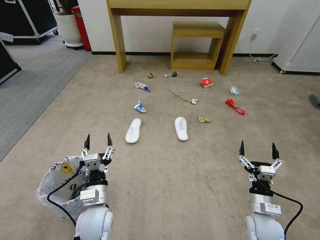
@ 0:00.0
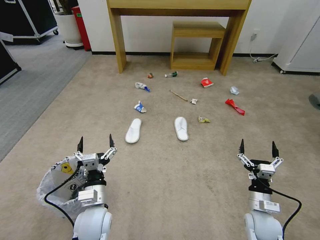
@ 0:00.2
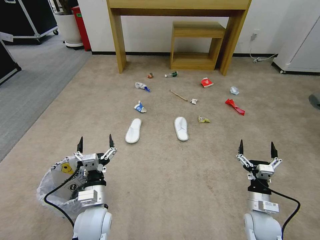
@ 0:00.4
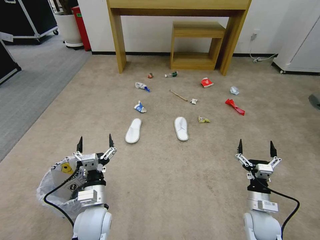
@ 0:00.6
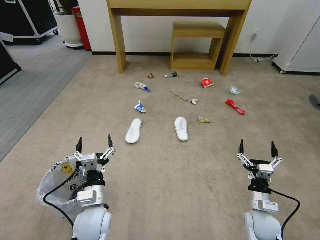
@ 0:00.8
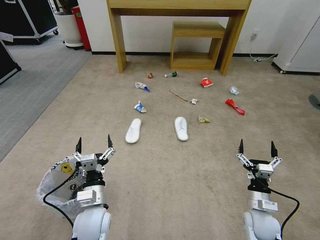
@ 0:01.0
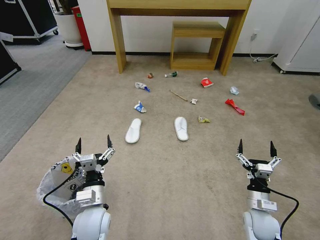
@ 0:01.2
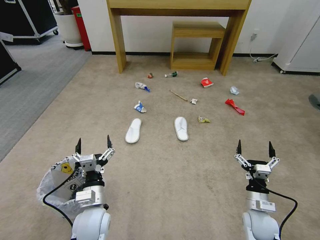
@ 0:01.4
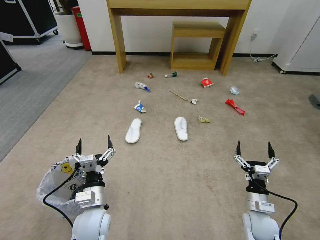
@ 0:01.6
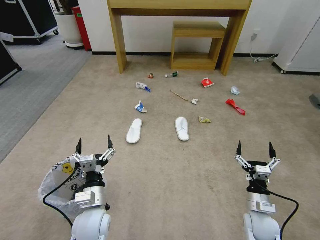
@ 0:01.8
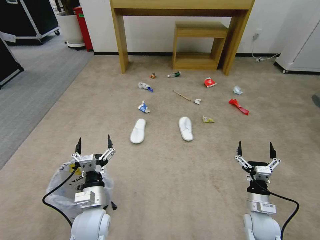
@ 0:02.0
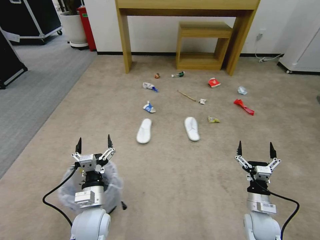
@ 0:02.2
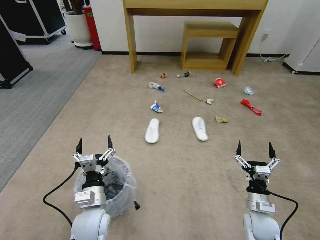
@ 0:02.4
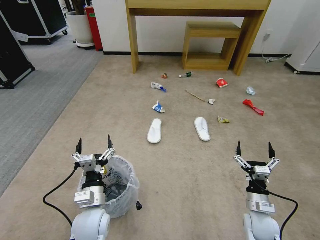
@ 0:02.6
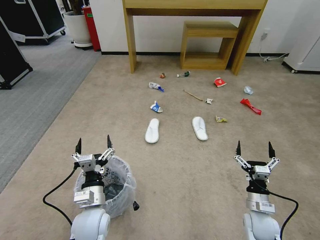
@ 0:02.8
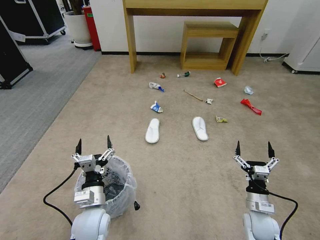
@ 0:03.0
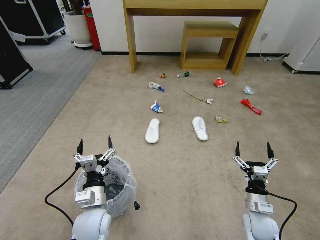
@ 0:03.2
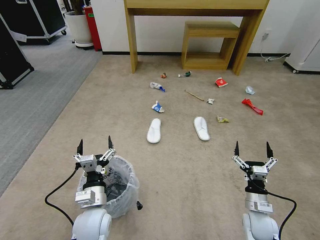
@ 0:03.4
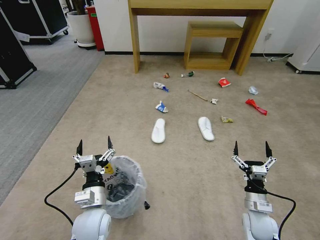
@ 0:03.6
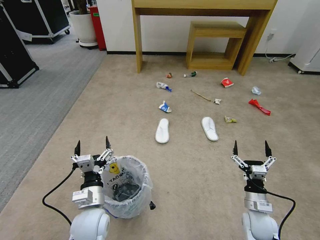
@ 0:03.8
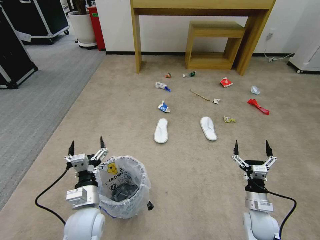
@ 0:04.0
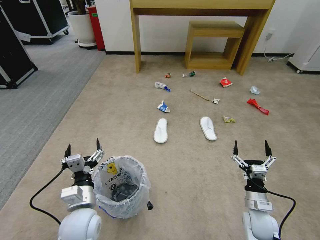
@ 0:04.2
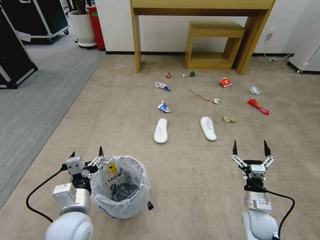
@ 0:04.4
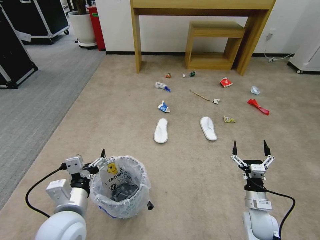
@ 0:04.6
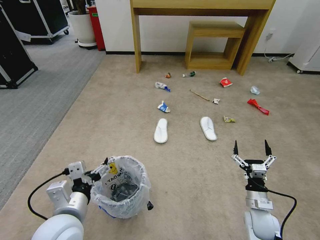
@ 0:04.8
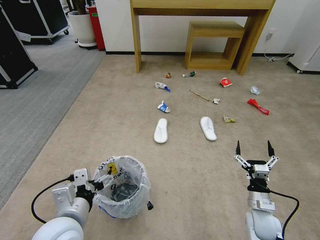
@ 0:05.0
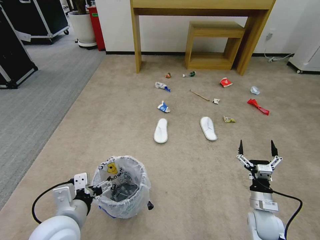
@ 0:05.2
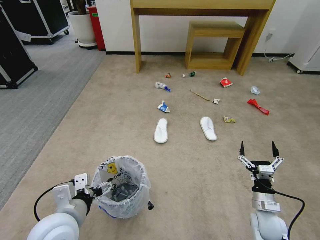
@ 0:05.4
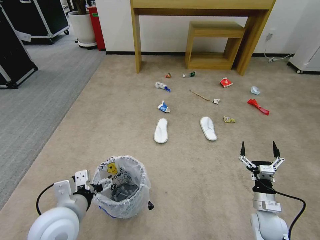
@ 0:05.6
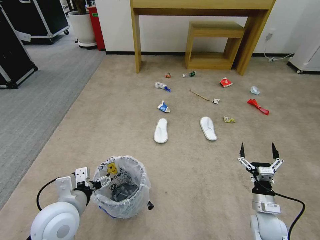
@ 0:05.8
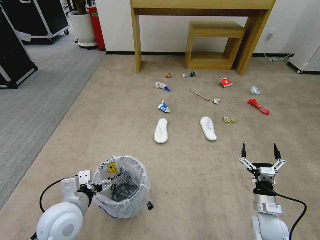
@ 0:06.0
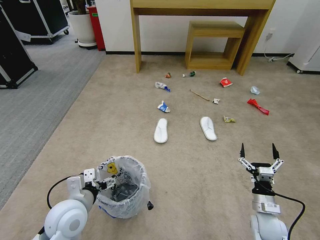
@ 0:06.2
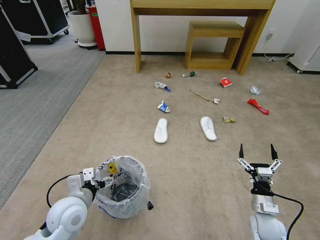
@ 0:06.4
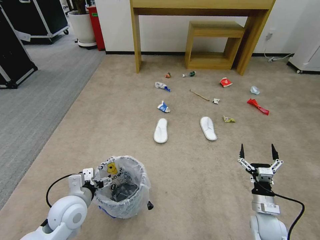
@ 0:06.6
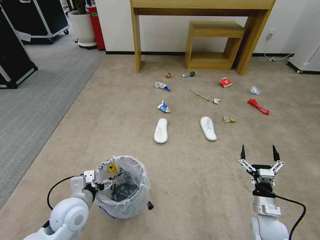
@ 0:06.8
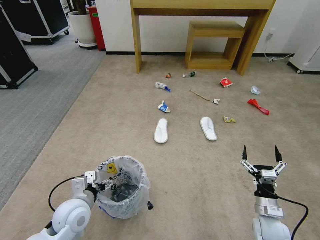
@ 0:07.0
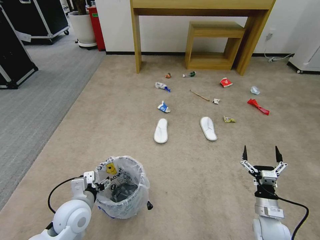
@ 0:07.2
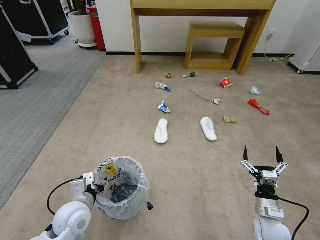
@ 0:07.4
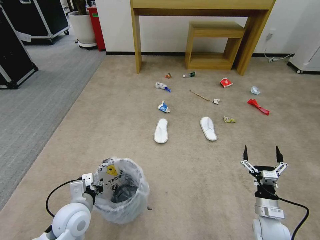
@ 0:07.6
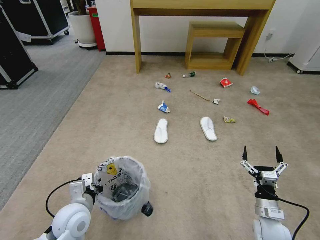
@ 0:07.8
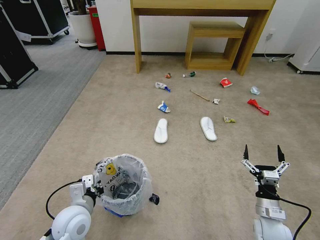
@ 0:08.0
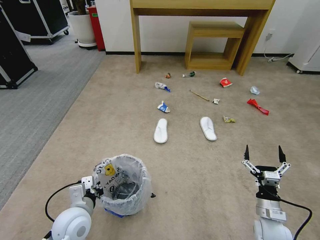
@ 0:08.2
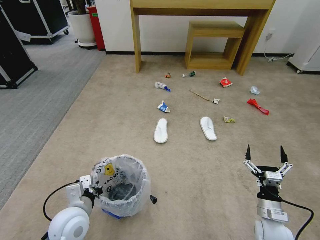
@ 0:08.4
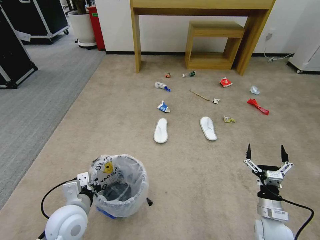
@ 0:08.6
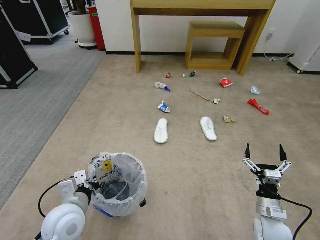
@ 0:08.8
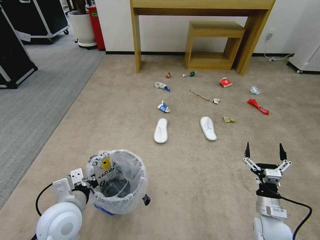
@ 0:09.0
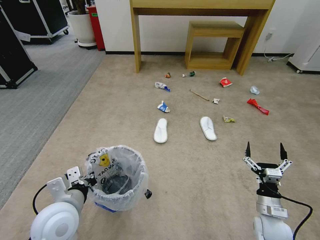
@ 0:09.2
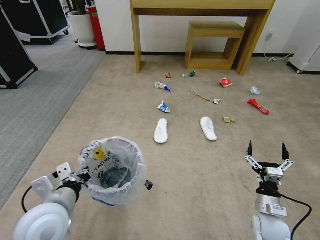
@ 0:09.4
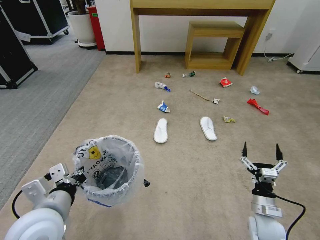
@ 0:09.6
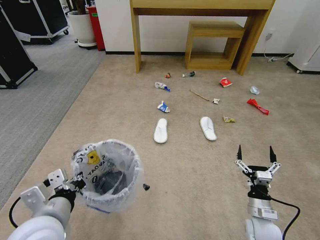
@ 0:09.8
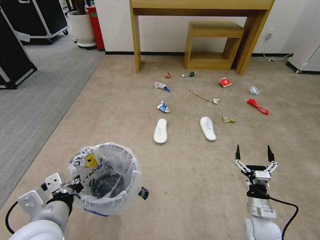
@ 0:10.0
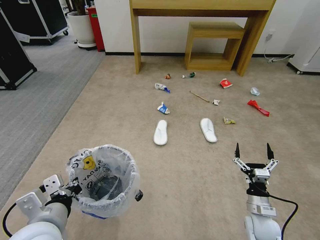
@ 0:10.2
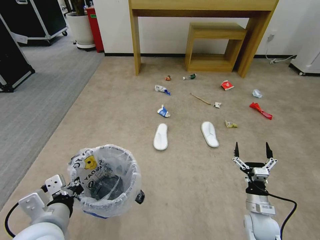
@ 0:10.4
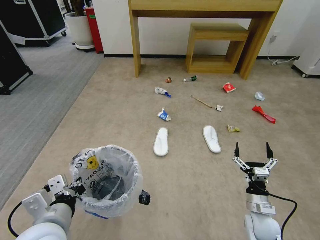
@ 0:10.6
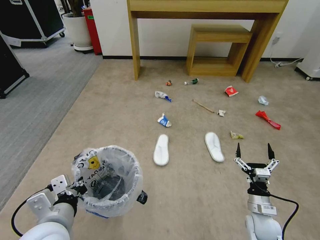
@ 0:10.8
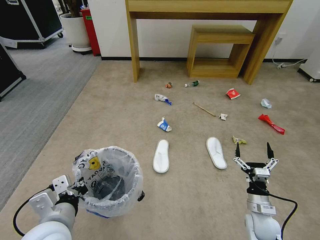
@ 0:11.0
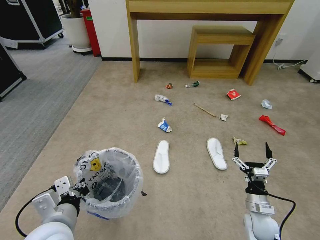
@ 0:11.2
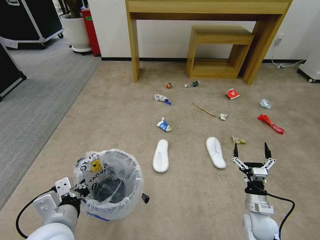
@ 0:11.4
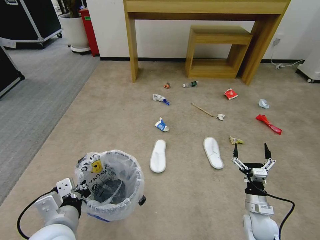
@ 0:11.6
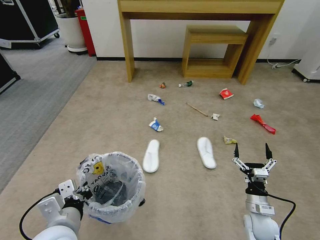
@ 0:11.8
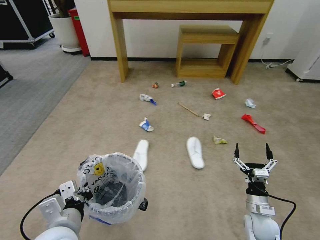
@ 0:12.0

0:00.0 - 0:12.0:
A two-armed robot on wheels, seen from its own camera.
Task of the whole recording: Pick up the trash bin and place the garbage on the floor into it.
0:01.6 - 0:03.0: Neither gripper changes place.
0:03.0 - 0:04.4: The left gripper is displaced upward by some 5 cm.
0:06.0 - 0:07.6: The left gripper shifts approximately 5 cm downward, and closes its fingers.
0:07.6 - 0:09.0: The left gripper moves upward, approximately 5 cm.
0:09.0 - 0:10.4: The left gripper heads backward and upward, covering about 10 cm.

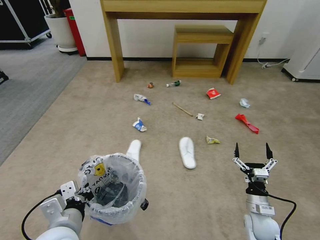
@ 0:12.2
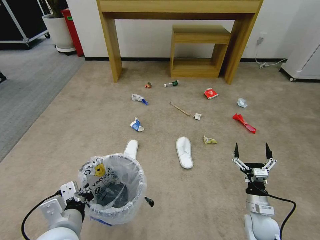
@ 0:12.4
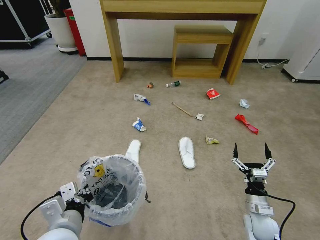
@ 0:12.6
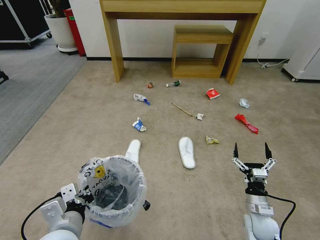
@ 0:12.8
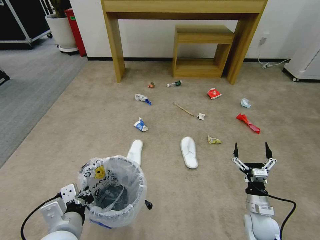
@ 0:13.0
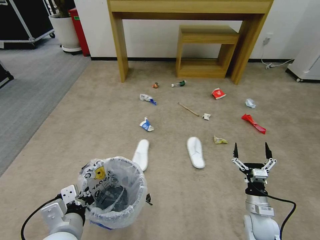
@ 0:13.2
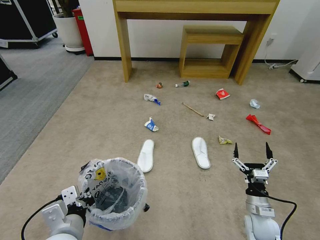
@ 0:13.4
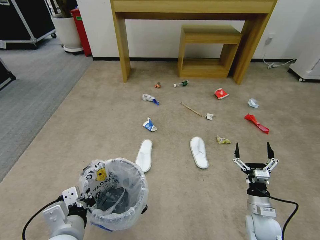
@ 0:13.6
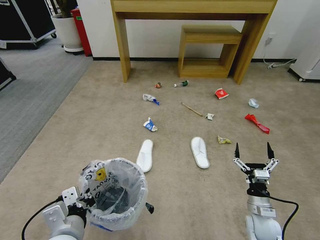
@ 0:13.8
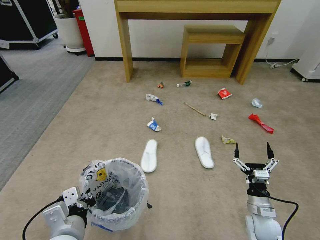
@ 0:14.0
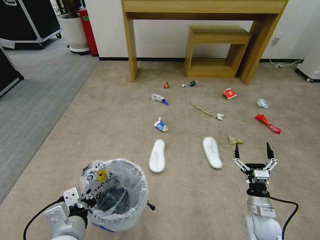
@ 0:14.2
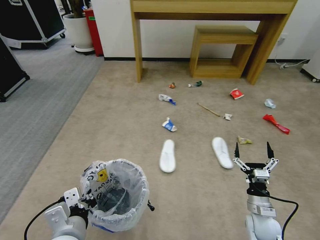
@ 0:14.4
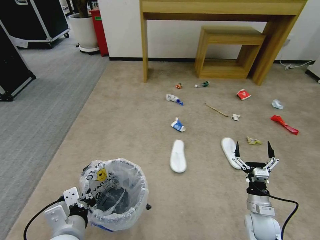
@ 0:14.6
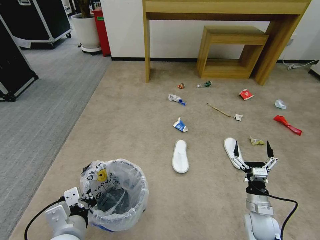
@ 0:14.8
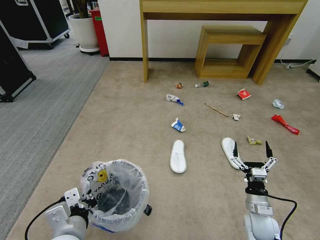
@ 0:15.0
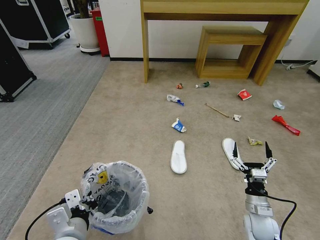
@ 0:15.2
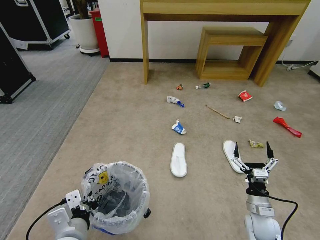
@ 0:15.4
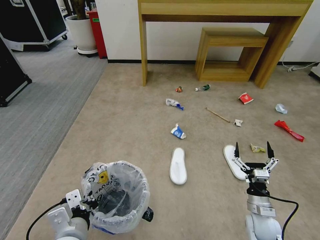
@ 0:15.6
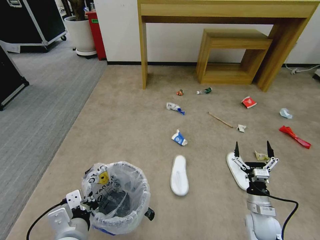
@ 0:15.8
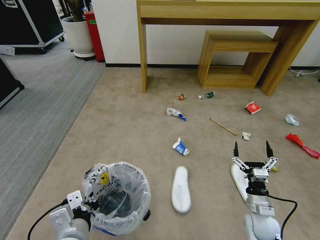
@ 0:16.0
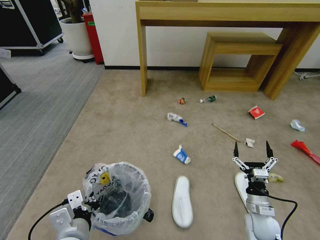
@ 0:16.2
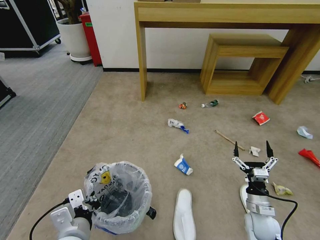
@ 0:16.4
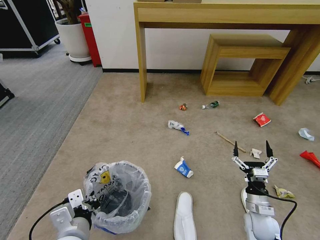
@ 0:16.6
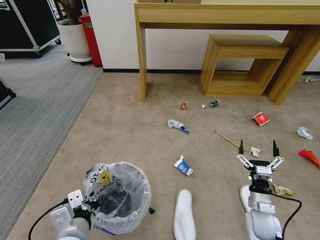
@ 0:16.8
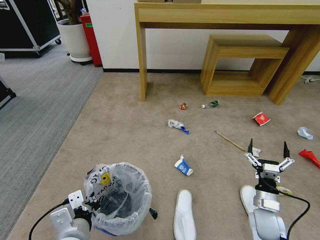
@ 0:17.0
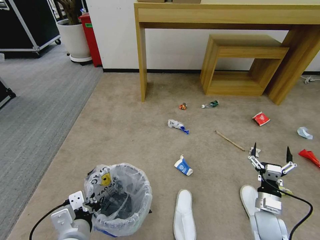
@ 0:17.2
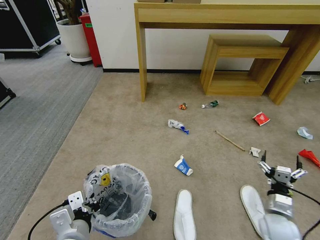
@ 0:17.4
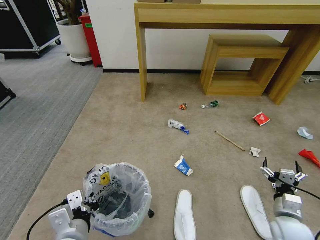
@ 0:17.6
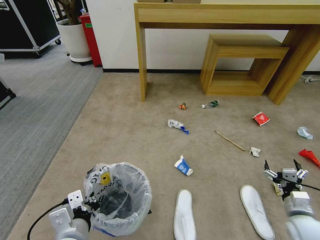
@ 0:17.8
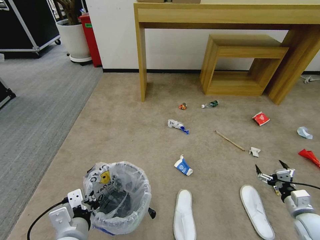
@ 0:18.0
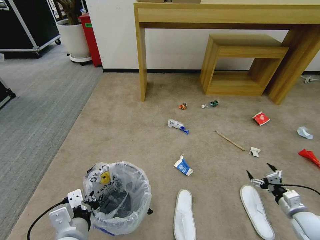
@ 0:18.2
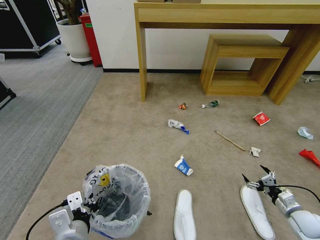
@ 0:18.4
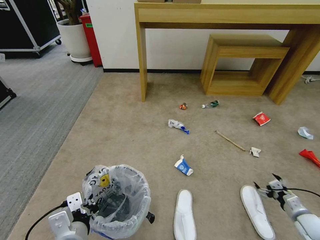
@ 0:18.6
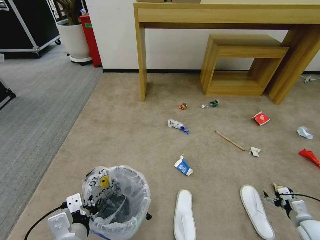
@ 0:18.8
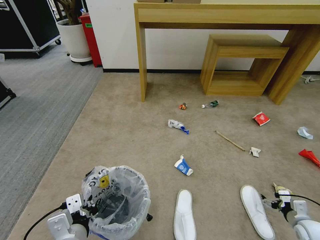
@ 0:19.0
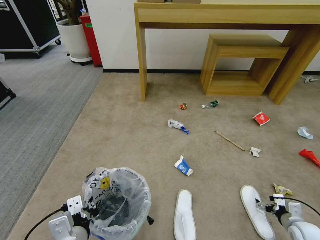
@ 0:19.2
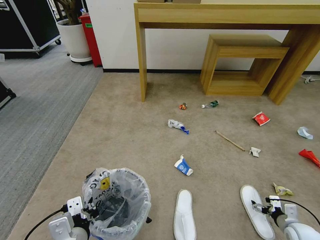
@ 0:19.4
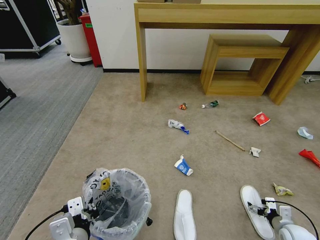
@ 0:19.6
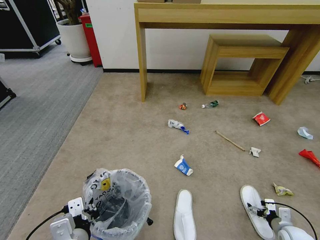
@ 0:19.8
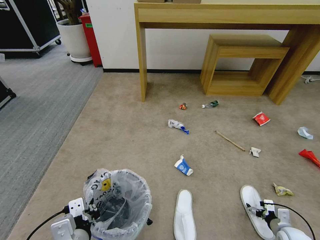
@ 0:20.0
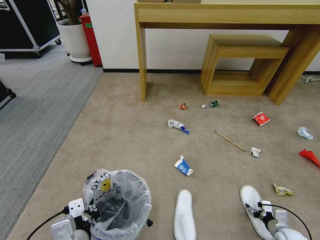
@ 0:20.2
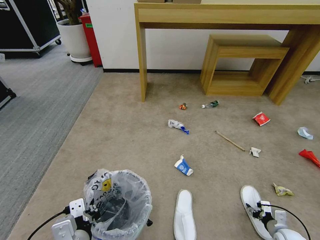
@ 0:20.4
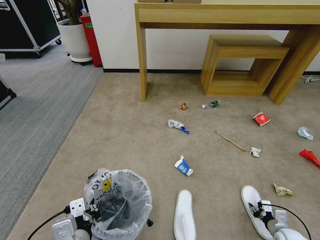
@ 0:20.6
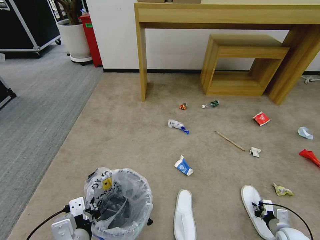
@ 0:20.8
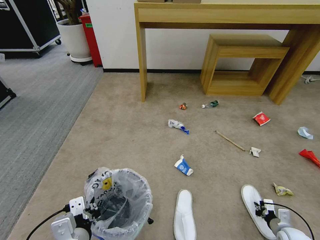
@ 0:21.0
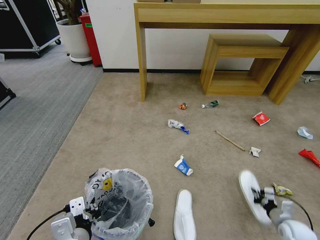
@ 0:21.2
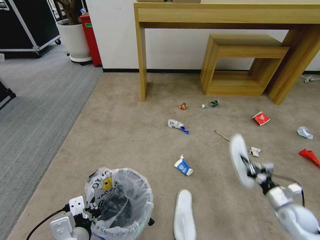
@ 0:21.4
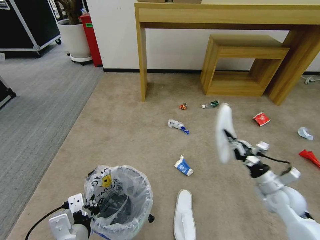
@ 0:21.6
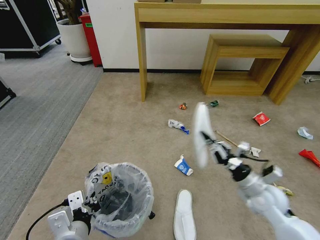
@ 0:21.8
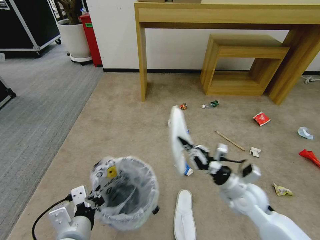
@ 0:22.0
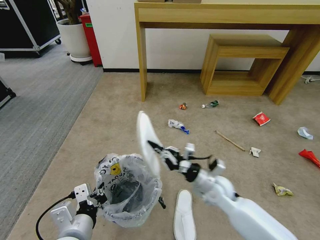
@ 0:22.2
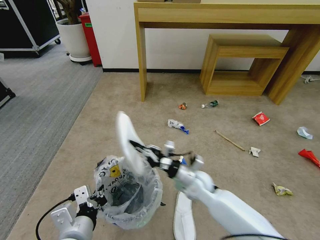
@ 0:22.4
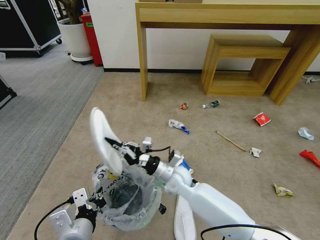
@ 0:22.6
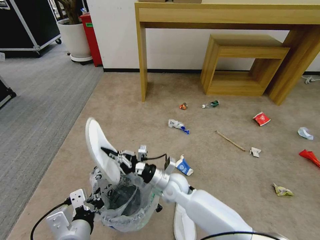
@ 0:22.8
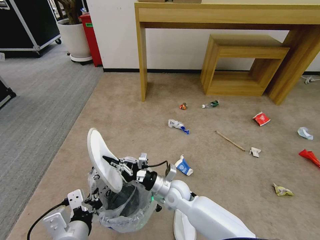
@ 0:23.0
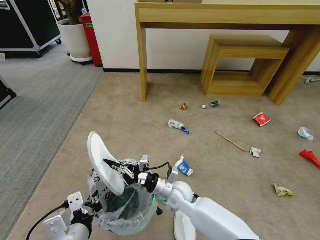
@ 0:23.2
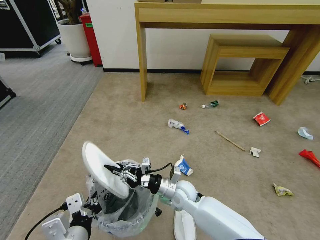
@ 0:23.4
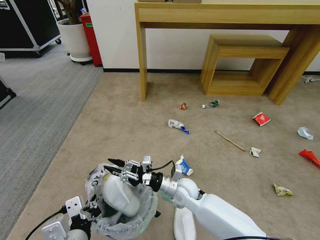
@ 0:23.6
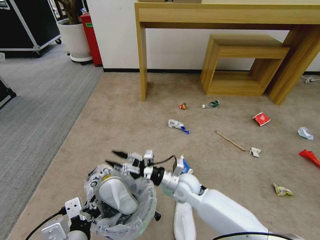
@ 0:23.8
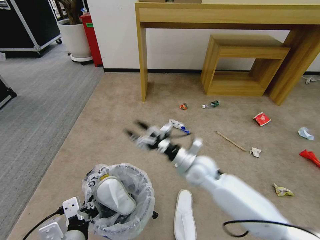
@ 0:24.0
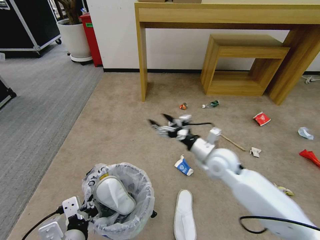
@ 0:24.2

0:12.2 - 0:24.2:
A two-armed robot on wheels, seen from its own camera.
Task of the whole recording: Pick up the trash bin and place the garbage on the floor into it.
0:12.2 - 0:13.8: The grippers make only small movements.
0:16.6 - 0:18.2: The right gripper shifts approximately 15 cm to the right.
0:18.2 - 0:19.8: The right gripper goes roughly 10 cm downward.
0:19.8 - 0:21.2: The right gripper closes.
0:21.2 - 0:22.6: The right gripper is displaced to the left by approximately 40 cm.
0:22.6 - 0:24.2: The right gripper moves to the right and upward, some 15 cm, and opens its fingers.
